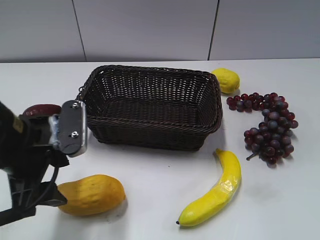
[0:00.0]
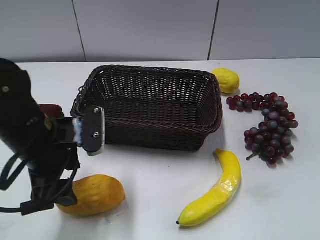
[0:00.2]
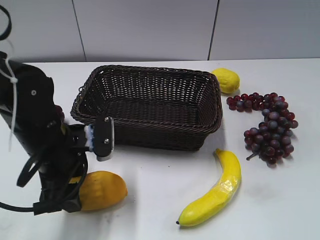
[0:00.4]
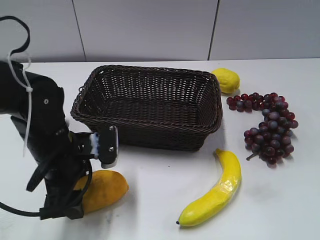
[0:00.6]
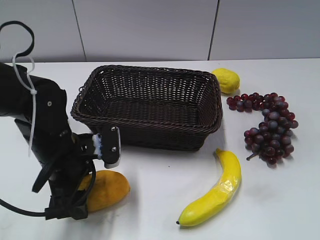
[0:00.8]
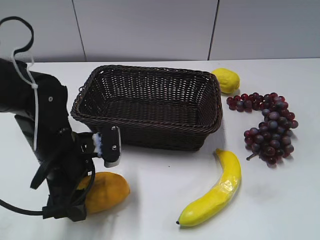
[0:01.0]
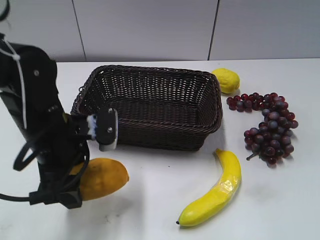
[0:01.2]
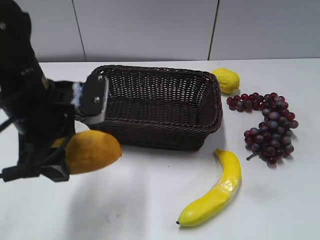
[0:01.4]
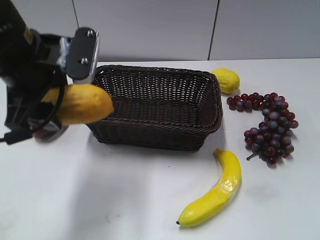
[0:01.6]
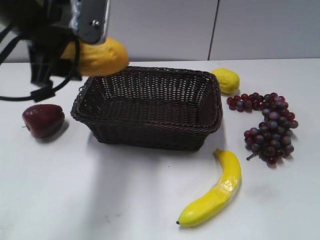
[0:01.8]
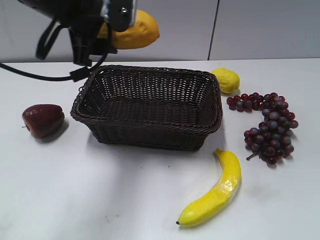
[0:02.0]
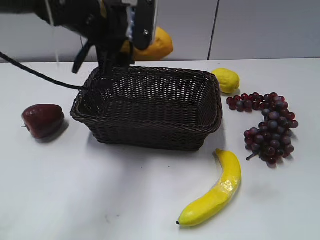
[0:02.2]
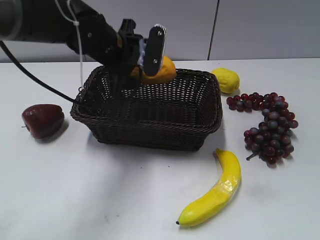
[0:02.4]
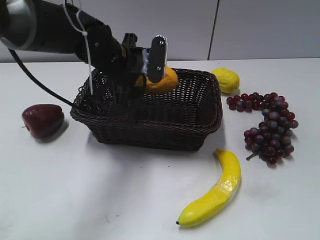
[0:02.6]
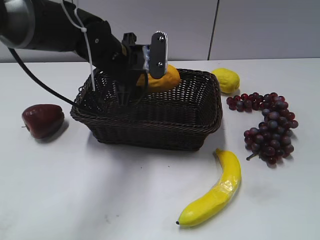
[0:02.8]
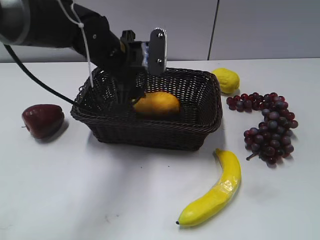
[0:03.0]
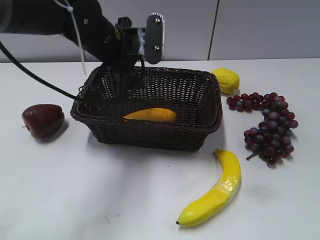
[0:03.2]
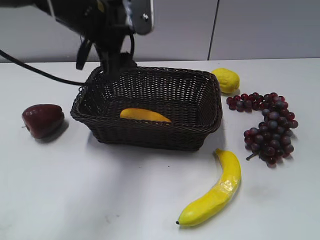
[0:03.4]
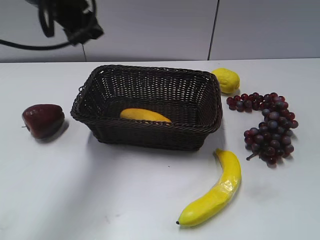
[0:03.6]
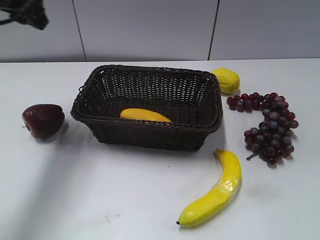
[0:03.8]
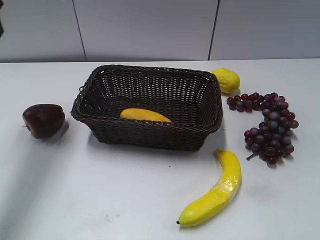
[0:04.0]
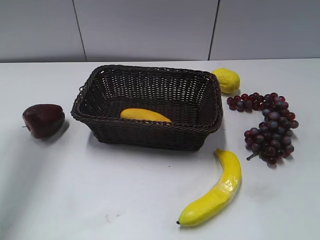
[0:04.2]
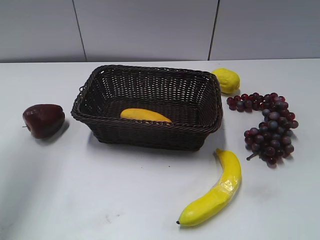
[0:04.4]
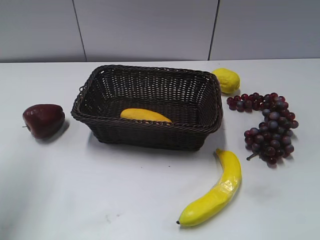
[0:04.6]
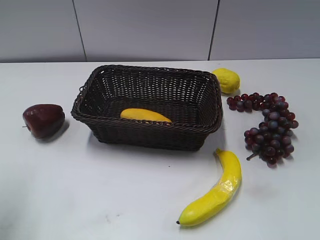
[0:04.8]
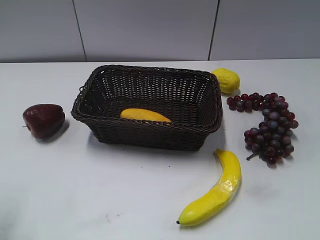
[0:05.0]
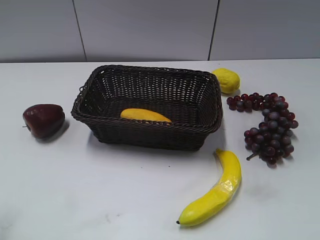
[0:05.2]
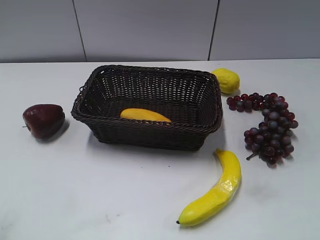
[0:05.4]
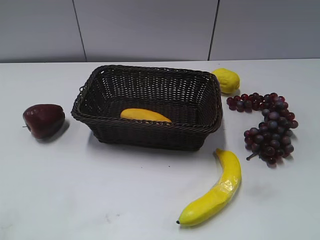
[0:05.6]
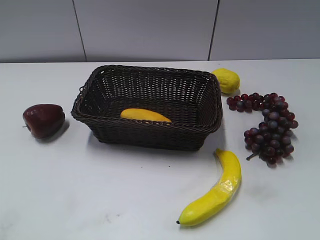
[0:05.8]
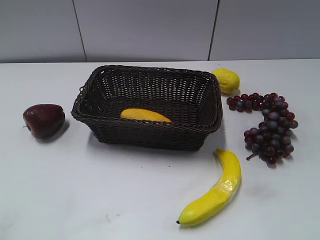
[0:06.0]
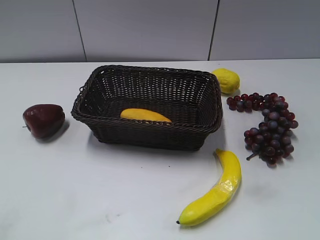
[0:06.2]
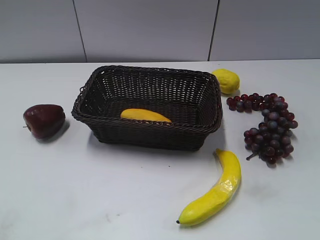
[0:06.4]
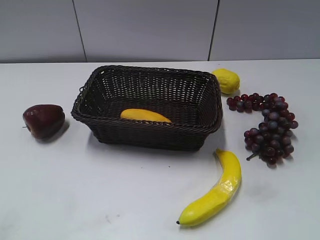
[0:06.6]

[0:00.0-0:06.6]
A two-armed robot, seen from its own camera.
Step, 0:00.0 to 0:00.8: Grasp the mango with left gripper.
Step, 0:01.0 to 0:03.0: Place the mango in the basket with left gripper.
0:00.0 to 0:01.6: The left gripper moves upward and forward, some 10 cm.
0:01.6 to 0:03.2: The left gripper shifts approximately 15 cm forward, to the right and downward, and opens.
0:03.2 to 0:05.0: The left gripper heads to the left and backward, covering roughly 30 cm, and closes up.
0:05.0 to 0:06.6: The left gripper shifts about 15 cm backward.
